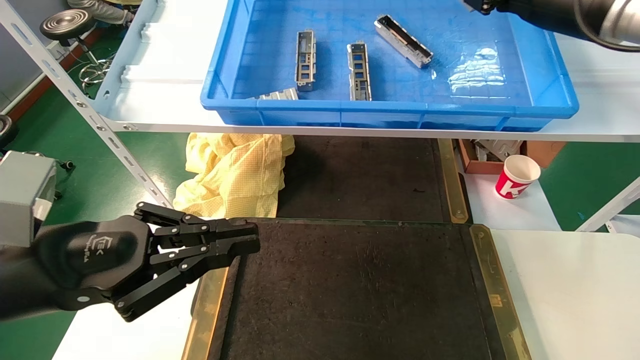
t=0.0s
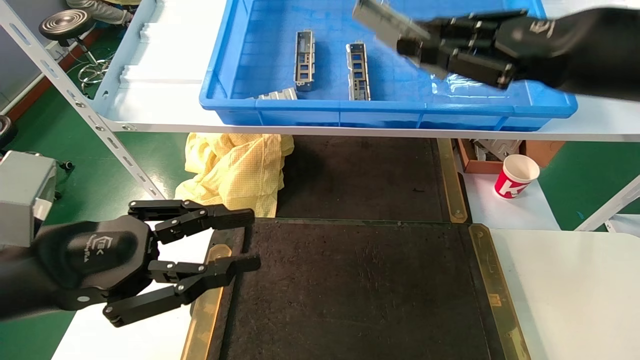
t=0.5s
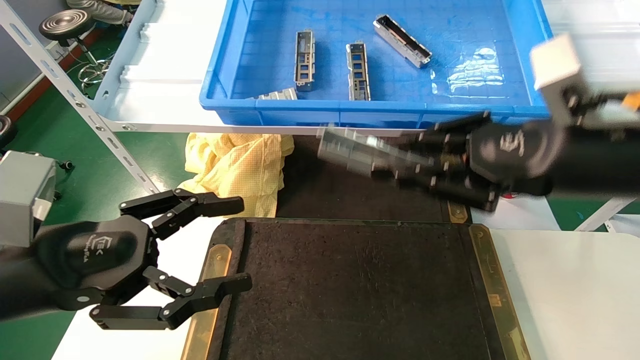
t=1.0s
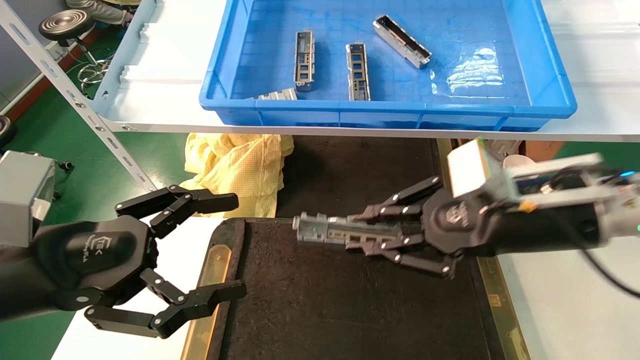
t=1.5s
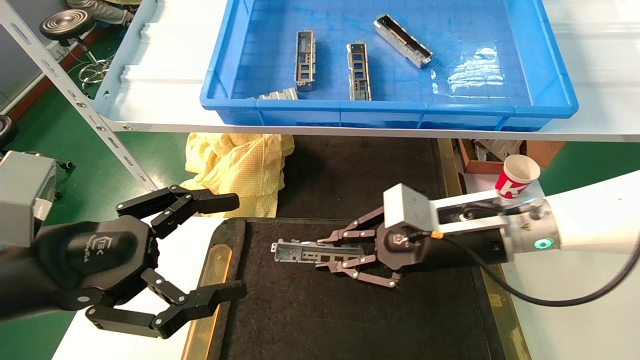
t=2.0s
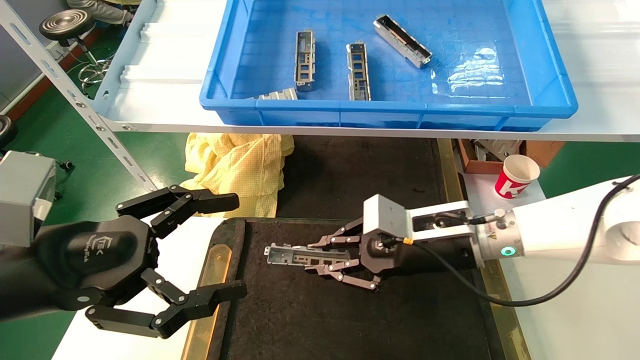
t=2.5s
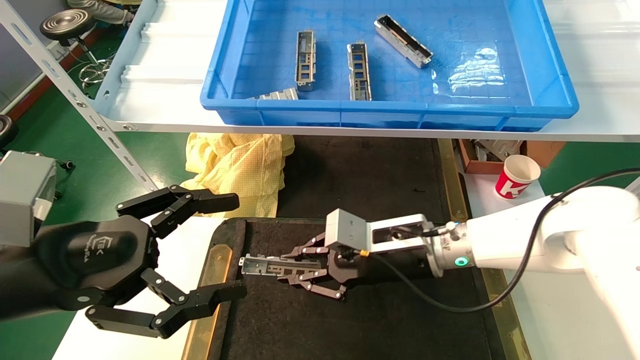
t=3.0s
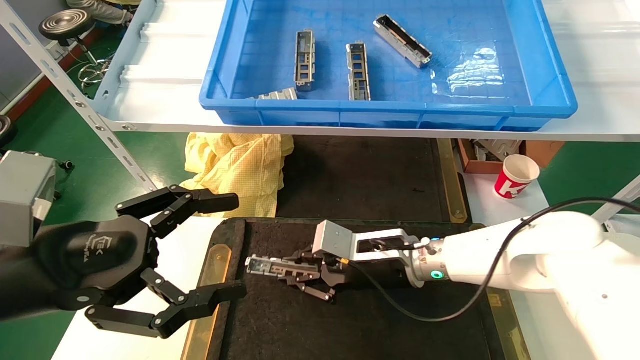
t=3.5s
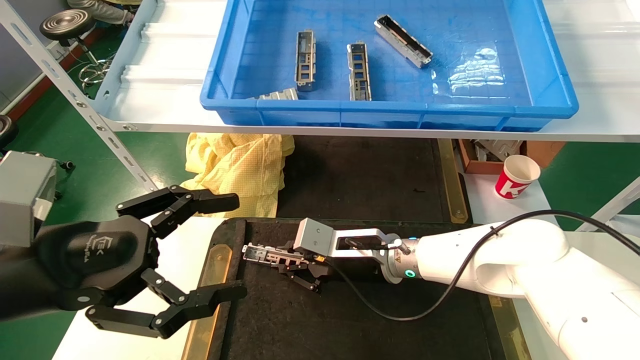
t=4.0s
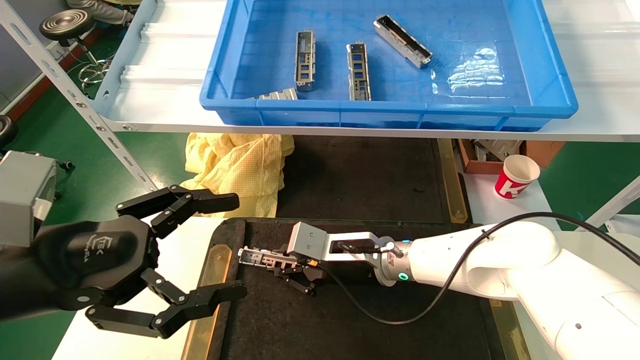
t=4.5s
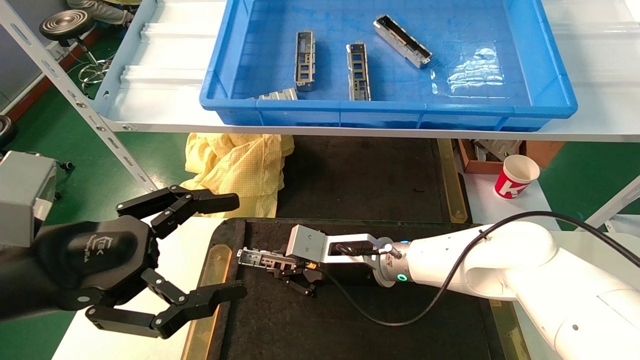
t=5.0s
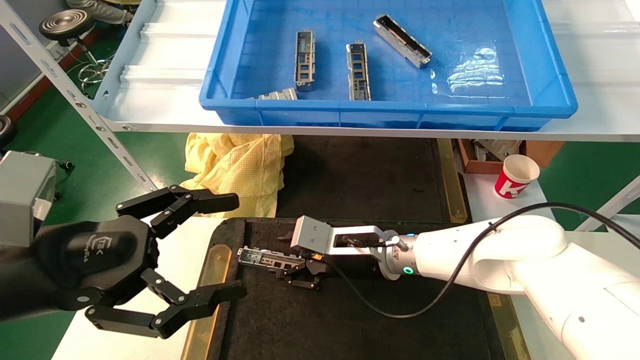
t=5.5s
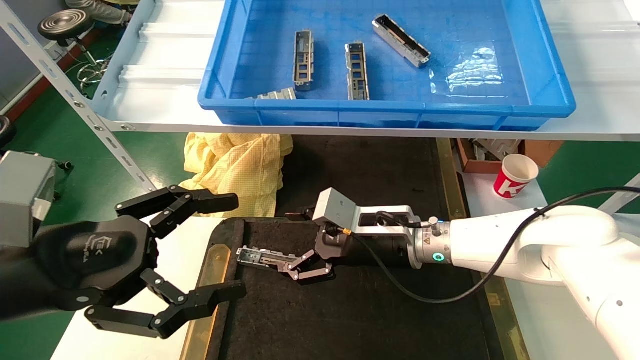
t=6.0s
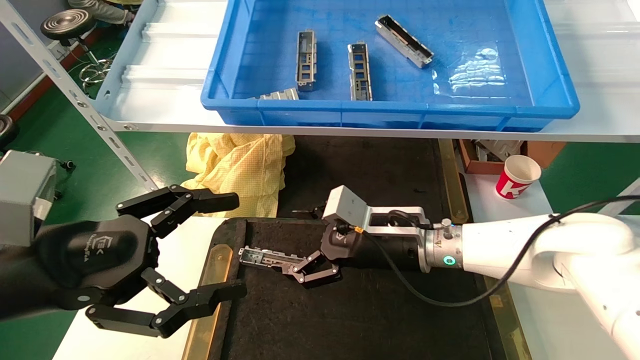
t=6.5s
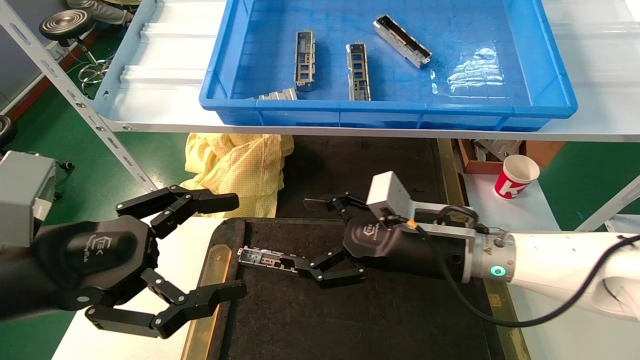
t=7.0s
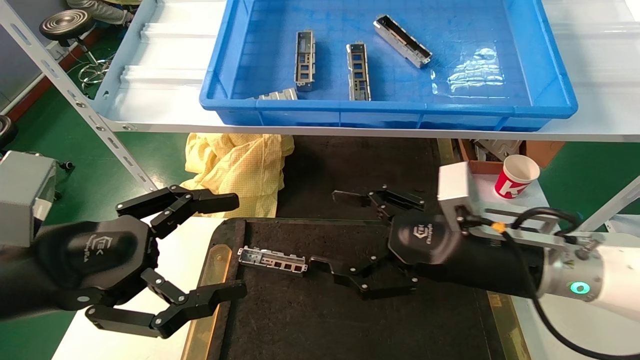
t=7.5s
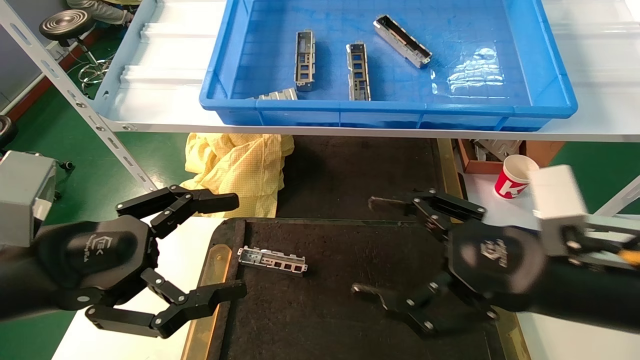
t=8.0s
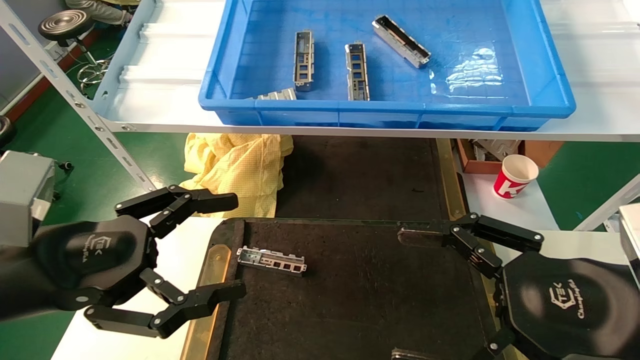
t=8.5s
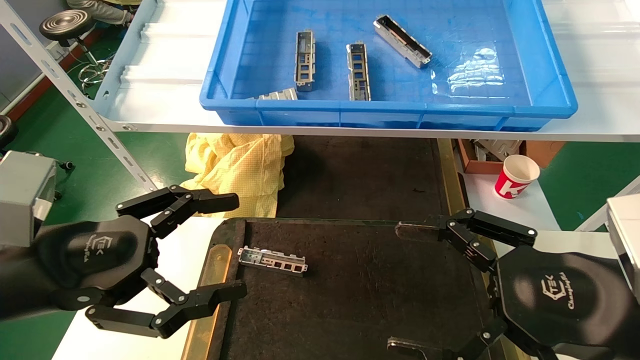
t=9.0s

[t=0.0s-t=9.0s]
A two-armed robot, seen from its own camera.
Task of the whole recording: grasp the part and place them on the black container.
Step, t=0.0s to t=5.5s: Place the front USB bracket into the box.
t=0.0s to t=2.0s: The right gripper moves downward and to the left, approximately 25 cm. The left gripper opens its fingers.
t=2.0s to t=4.5s: The right gripper heads to the left, downward and forward, covering approximately 15 cm.
t=4.5s to t=7.0s: The right gripper shifts some 10 cm to the right, backward and upward, and opens its fingers.
t=7.0s to t=9.0s: The right gripper shifts about 20 cm backward and to the right.
